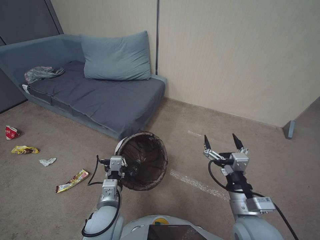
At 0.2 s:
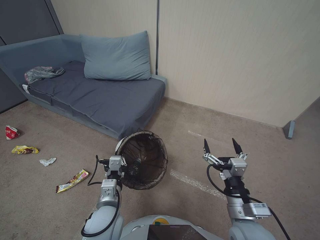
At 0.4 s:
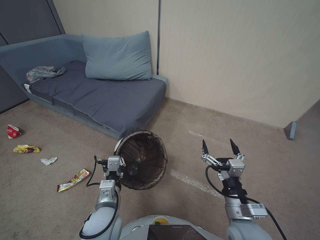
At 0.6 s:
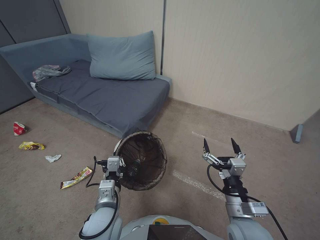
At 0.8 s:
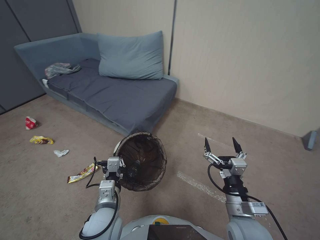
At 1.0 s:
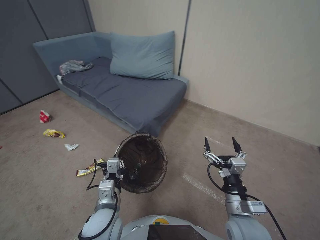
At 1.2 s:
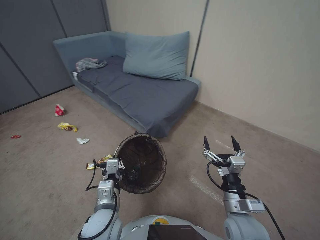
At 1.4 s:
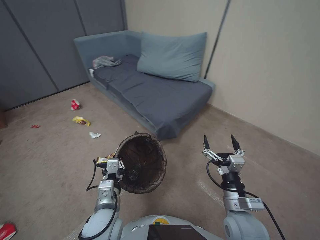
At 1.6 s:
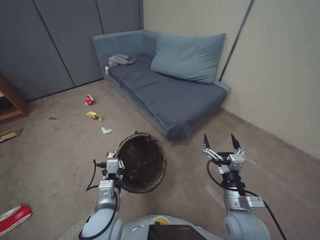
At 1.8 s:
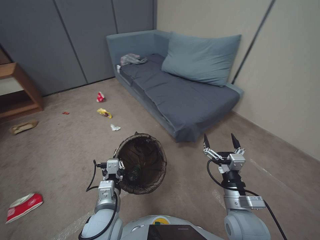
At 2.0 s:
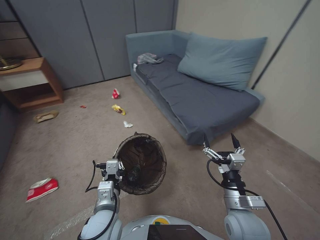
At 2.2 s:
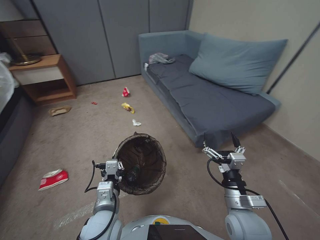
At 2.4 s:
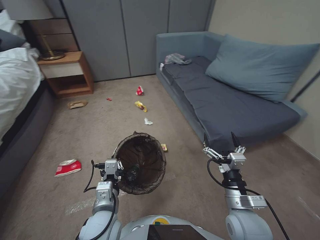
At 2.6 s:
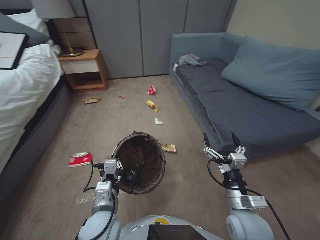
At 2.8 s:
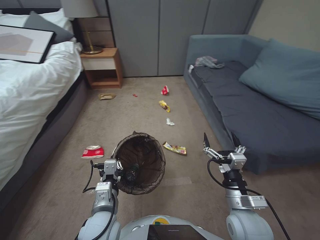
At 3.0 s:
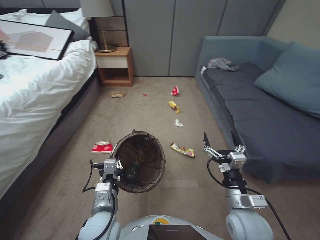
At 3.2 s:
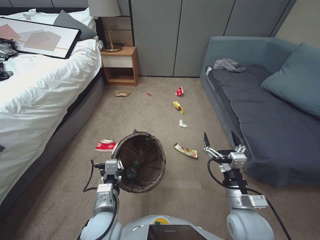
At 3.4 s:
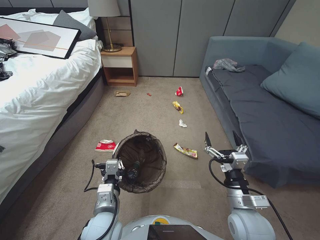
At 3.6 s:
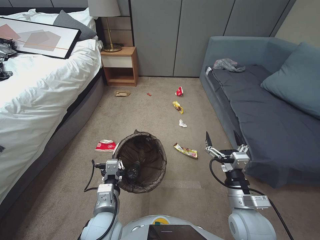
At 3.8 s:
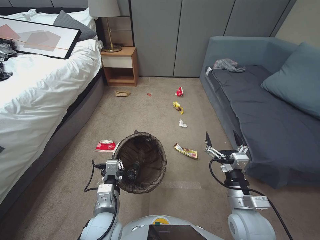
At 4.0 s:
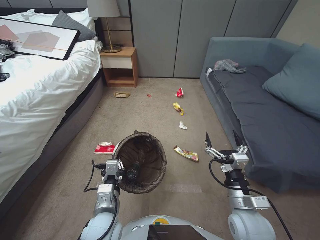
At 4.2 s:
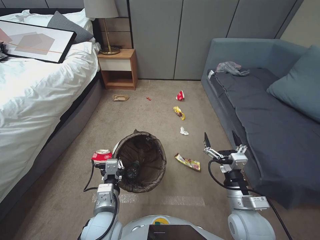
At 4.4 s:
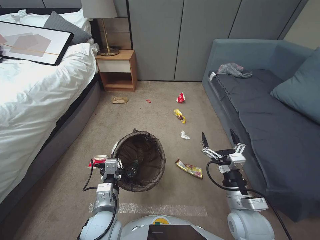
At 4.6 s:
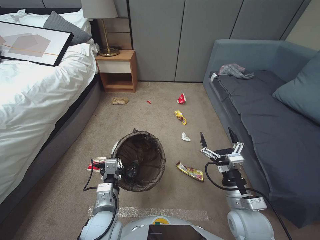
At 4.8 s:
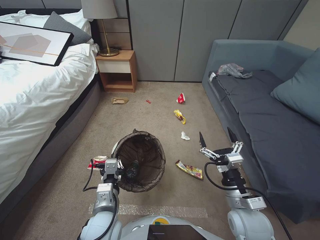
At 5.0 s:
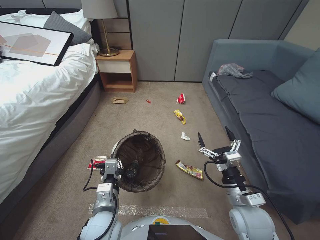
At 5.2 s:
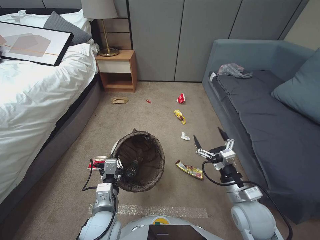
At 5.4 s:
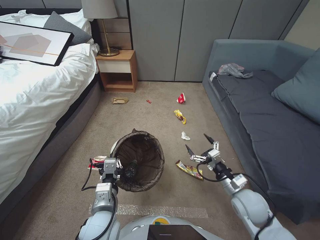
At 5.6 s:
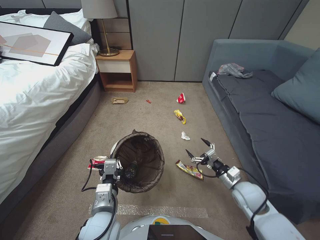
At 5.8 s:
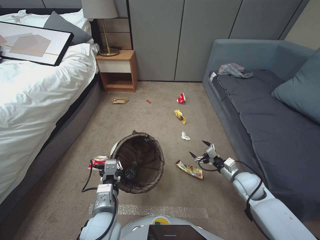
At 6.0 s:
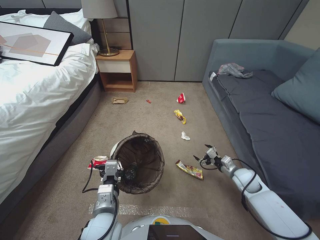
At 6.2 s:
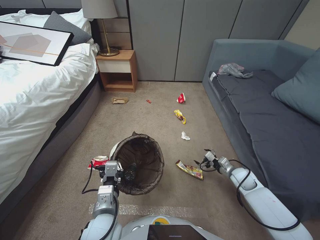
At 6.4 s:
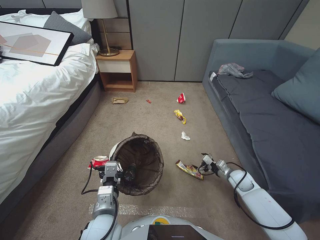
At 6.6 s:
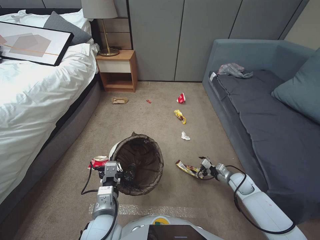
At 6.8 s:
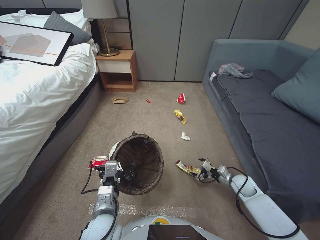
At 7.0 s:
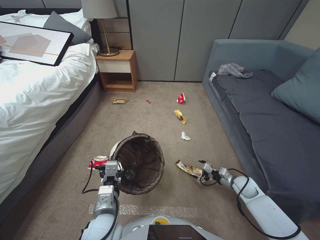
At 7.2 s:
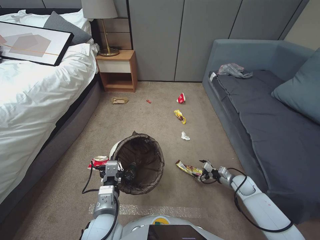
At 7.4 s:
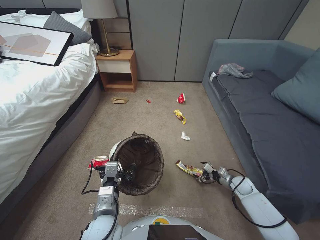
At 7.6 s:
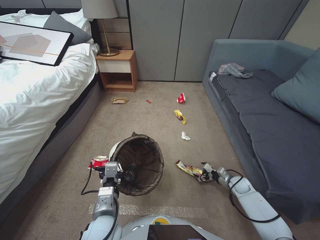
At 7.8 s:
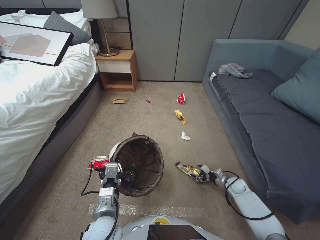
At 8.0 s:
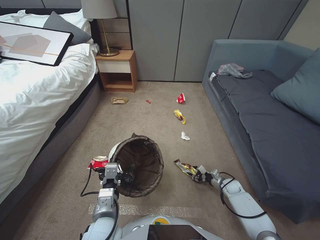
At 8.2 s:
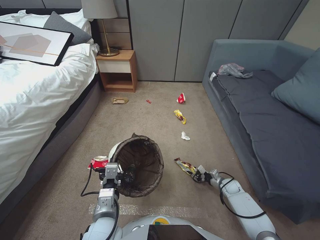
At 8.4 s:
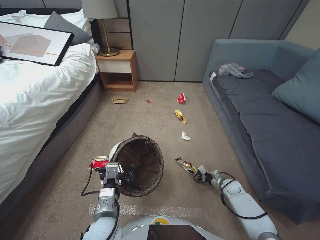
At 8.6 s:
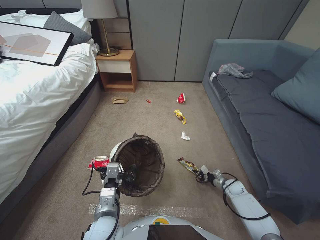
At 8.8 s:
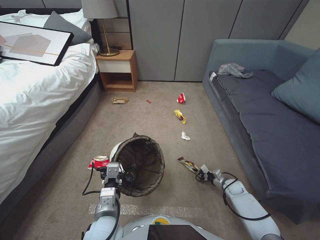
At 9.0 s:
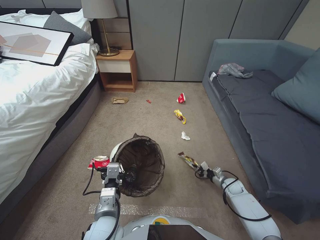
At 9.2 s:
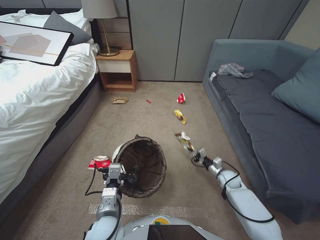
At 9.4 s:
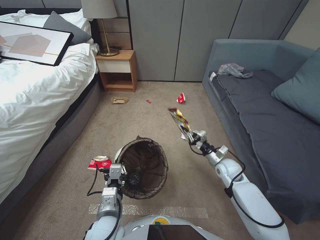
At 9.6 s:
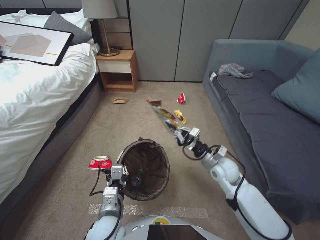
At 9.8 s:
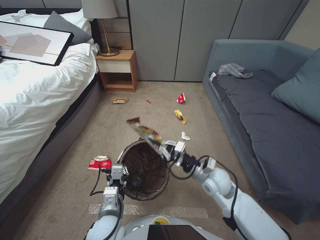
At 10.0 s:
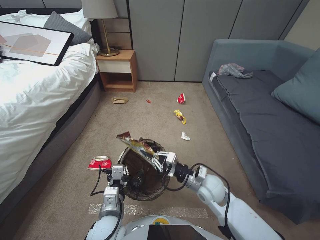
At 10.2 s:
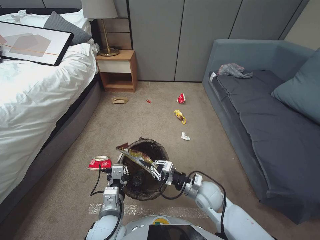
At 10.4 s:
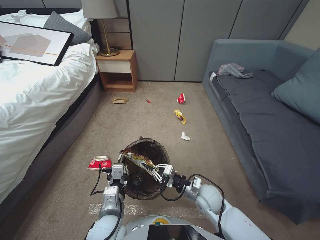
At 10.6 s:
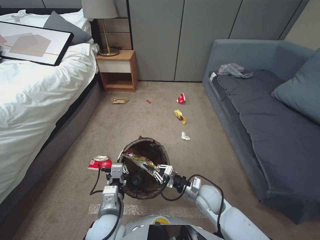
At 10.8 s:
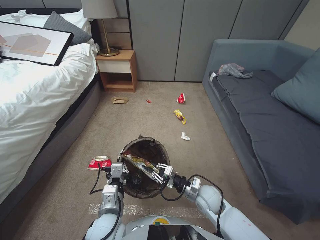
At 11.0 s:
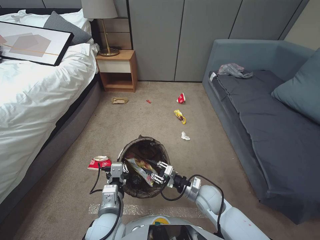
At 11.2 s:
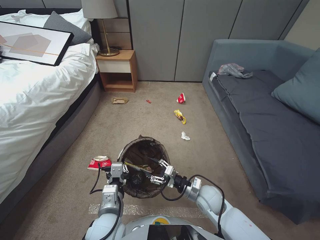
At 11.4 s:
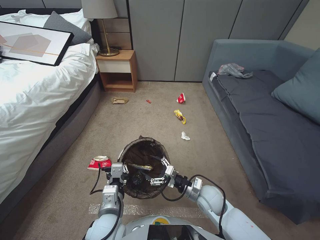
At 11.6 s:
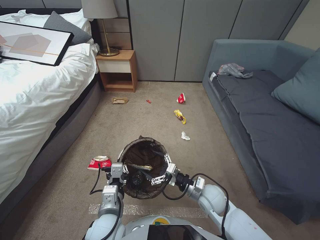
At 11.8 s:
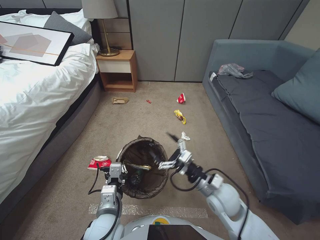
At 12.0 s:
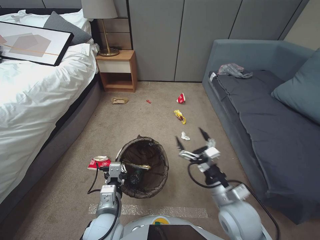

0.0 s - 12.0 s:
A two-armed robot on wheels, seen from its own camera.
Task of the whole recording: Pick up the trash bin, then pick up the garbage from the floor and place it into the trash bin.
3.0 s - 4.4 s: The two grippers keep their place.
4.4 s - 6.0 s: The right gripper is displaced forward, to the right and downward by some 20 cm.
6.0 s - 7.6 s: The right gripper goes about 15 cm downward and to the right.
7.6 s - 9.0 s: The right gripper closes up.
9.0 s - 10.4 s: The right gripper travels to the left and upward by some 25 cm.
10.4 s - 12.0 s: The right gripper shifts some 10 cm upward and backward, and opens.

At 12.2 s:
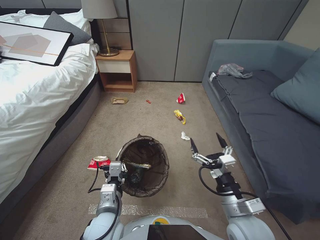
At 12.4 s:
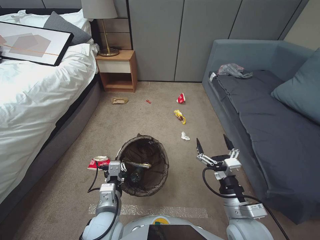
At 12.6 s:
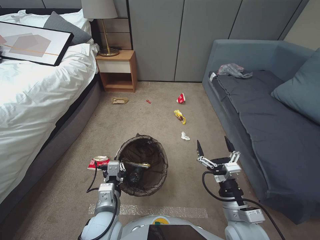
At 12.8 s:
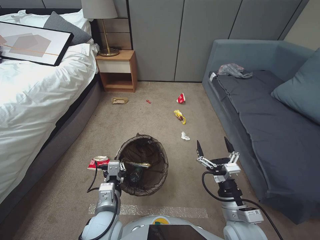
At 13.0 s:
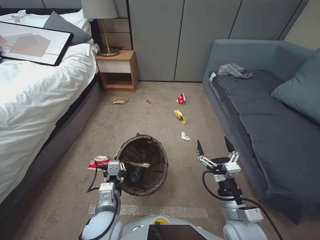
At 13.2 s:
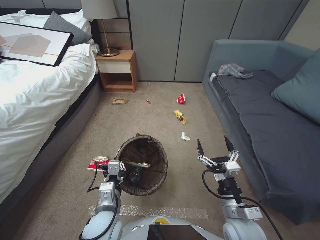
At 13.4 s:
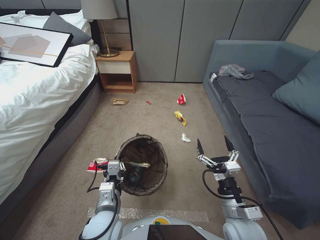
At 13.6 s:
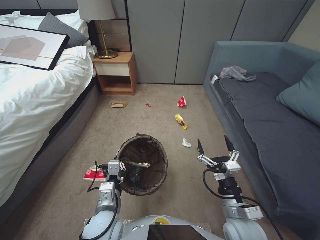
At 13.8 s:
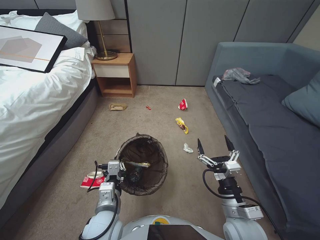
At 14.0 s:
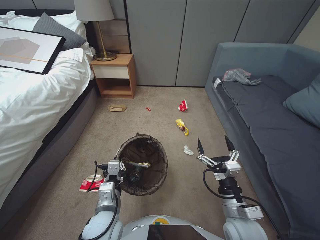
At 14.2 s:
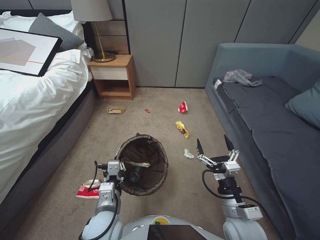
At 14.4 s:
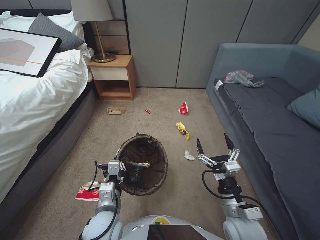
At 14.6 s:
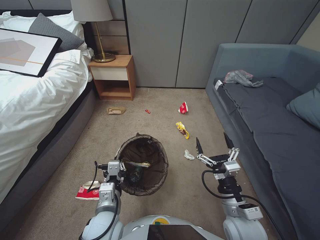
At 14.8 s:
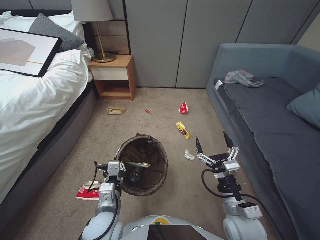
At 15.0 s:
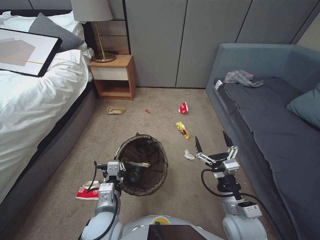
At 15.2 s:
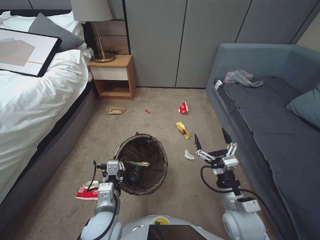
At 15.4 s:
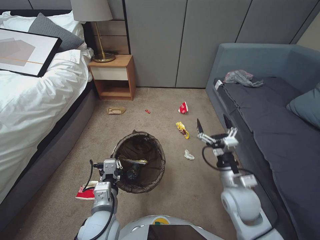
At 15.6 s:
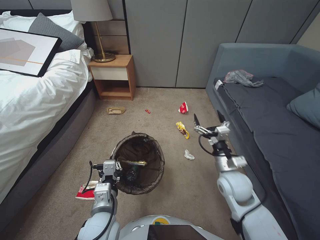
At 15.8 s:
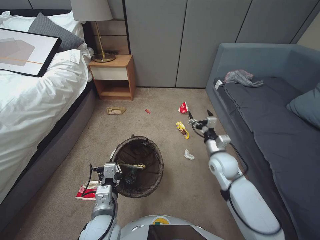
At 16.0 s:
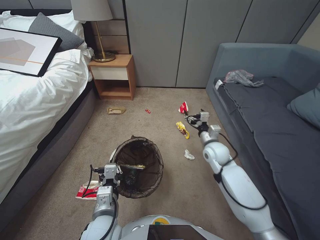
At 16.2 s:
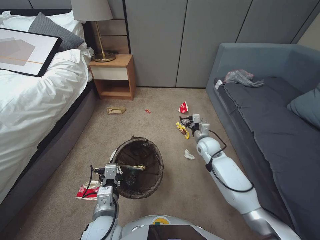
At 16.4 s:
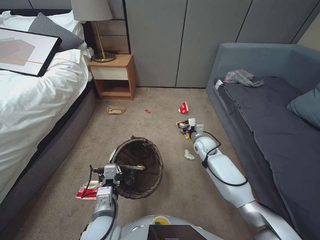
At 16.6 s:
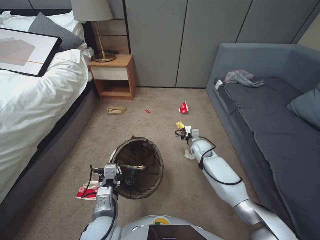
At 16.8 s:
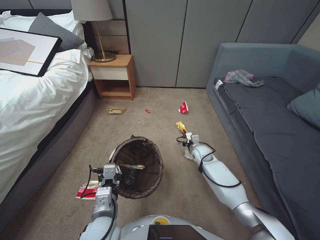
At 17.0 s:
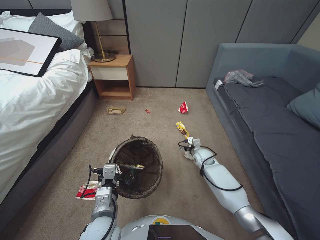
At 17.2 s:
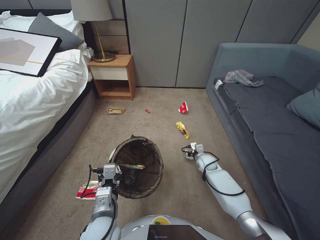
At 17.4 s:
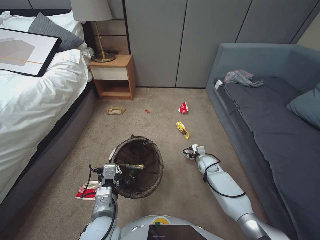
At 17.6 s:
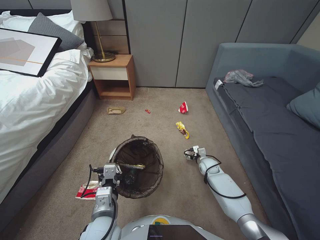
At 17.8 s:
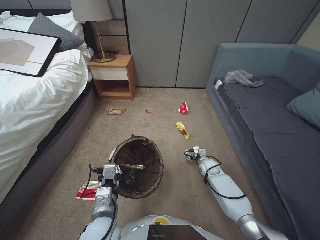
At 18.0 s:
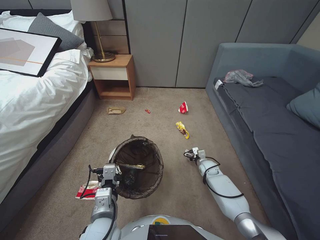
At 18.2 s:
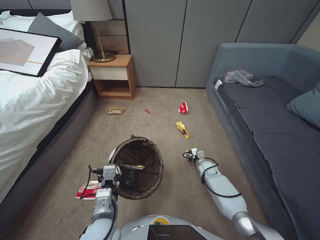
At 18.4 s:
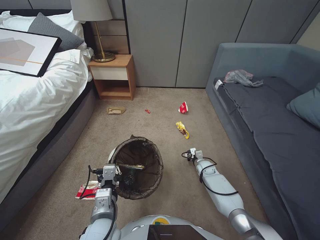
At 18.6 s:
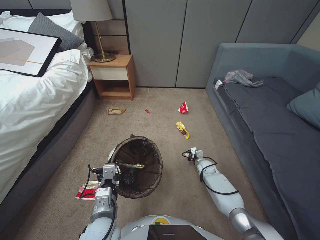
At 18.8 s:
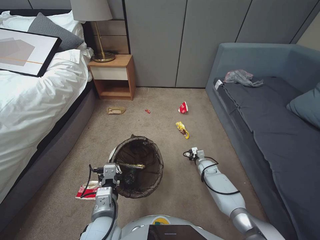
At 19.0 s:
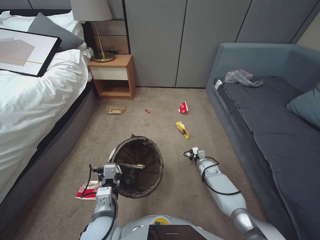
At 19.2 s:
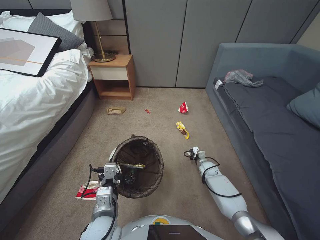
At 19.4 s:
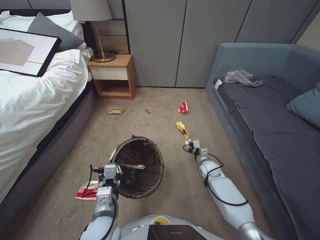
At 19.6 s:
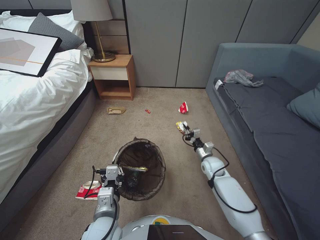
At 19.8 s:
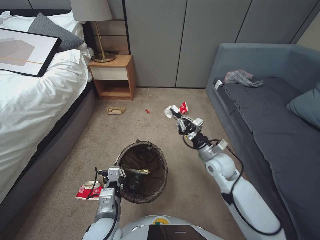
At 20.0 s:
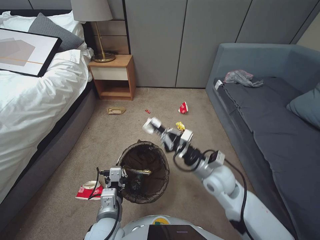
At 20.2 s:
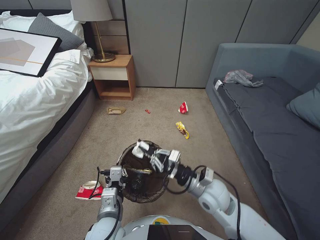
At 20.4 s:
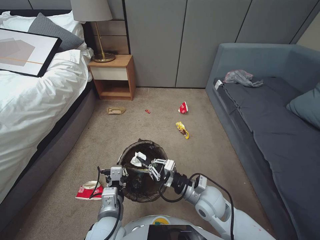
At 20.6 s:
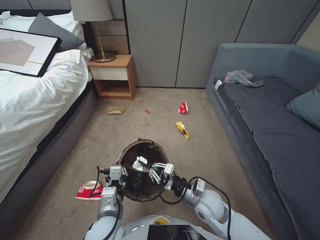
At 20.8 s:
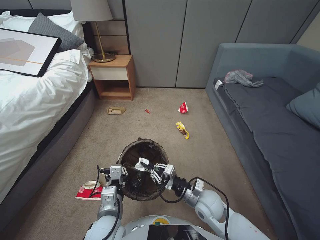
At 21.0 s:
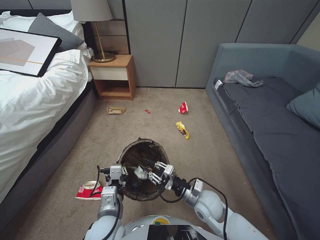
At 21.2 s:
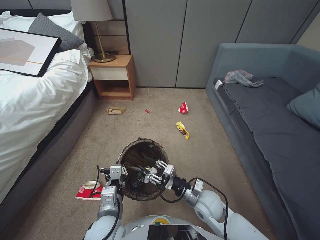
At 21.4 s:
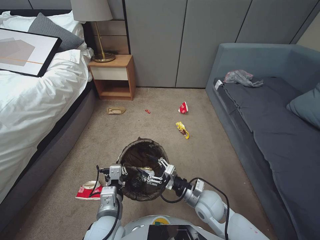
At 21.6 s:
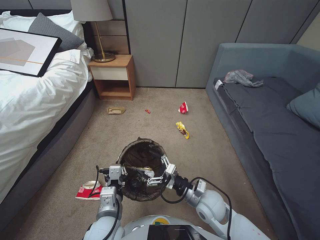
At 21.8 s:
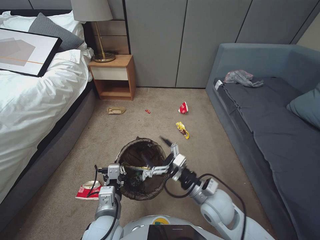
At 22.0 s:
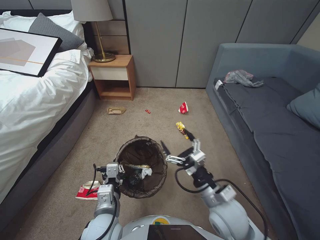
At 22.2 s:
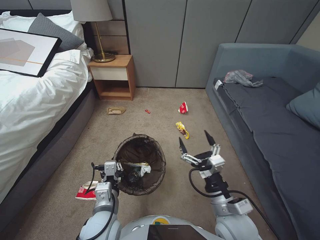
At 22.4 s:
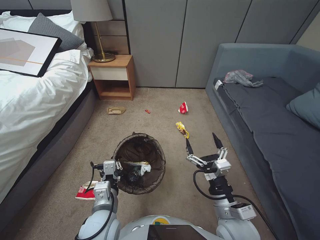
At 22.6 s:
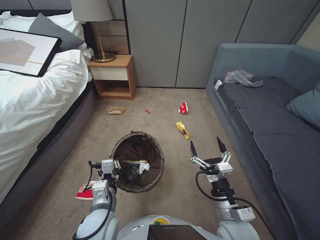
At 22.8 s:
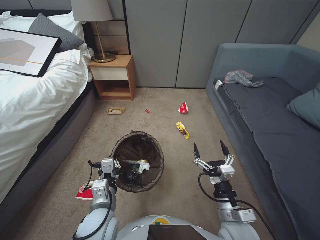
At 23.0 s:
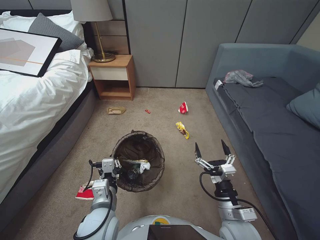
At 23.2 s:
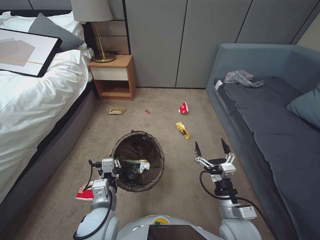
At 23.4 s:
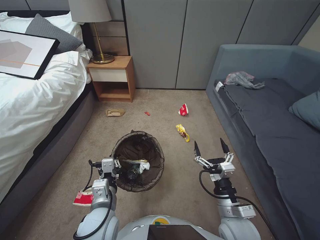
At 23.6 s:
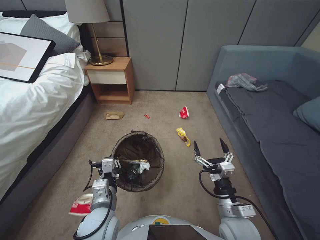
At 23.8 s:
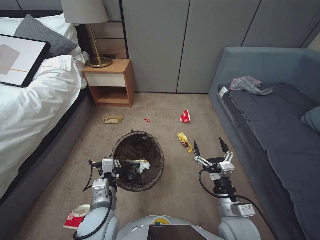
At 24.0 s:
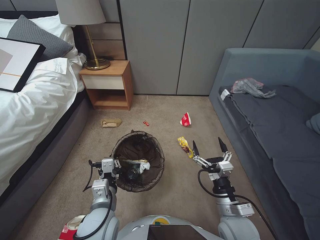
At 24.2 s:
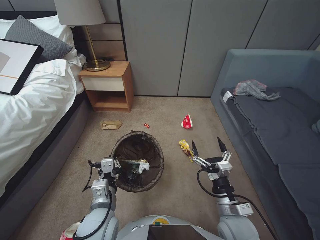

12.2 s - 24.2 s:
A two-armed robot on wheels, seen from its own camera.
Task of the whole recording: Pick up the trash bin, then pick up the garbage from the floor and place it into the trash bin.
12.2 s - 15.2 s: The grippers make only small movements.
15.2 s - 16.6 s: The right gripper heads forward, covering approximately 30 cm.
16.6 s - 18.2 s: The right gripper goes approximately 15 cm downward and to the right, and closes up.
18.2 s - 19.8 s: The right gripper is displaced upward by about 10 cm, and closes.
19.8 s - 21.2 s: The right gripper is displaced backward and to the left by approximately 20 cm, and opens.
21.2 s - 22.6 s: The right gripper travels backward and upward by roughly 10 cm, and opens its fingers.
